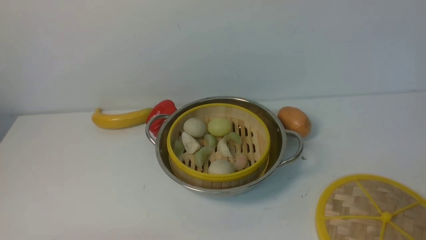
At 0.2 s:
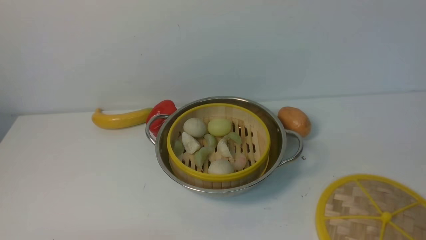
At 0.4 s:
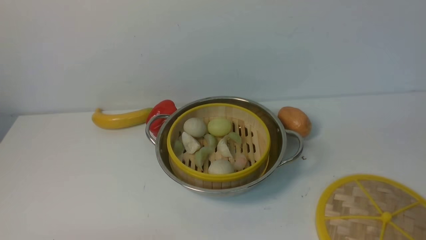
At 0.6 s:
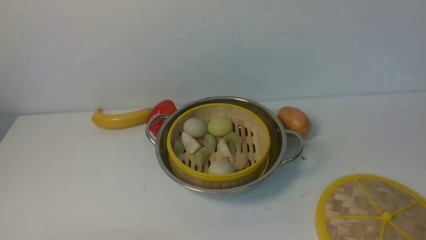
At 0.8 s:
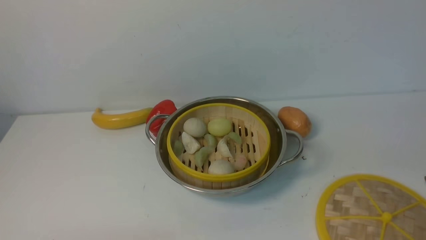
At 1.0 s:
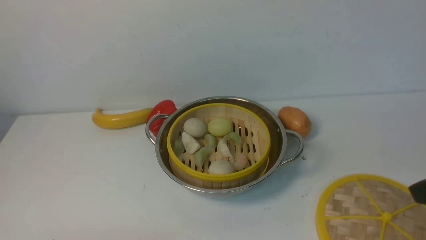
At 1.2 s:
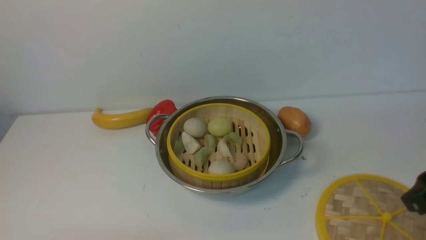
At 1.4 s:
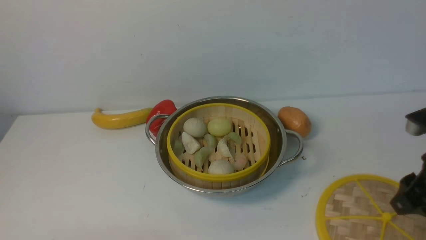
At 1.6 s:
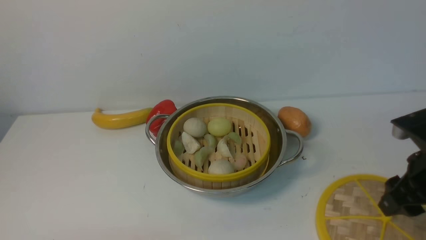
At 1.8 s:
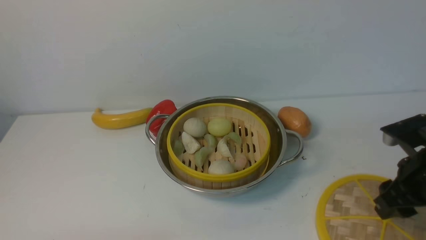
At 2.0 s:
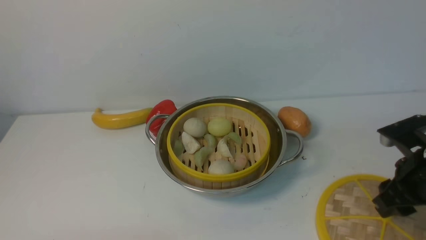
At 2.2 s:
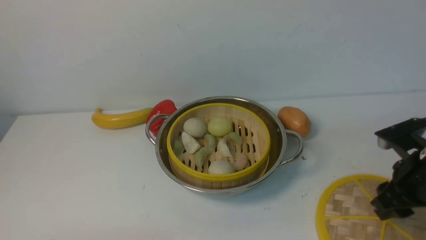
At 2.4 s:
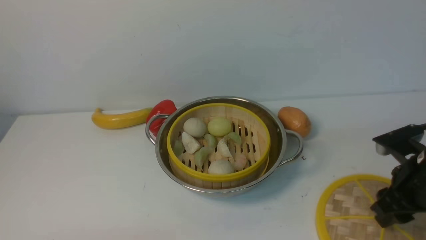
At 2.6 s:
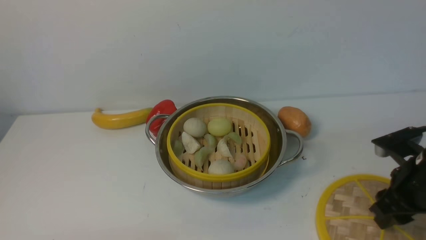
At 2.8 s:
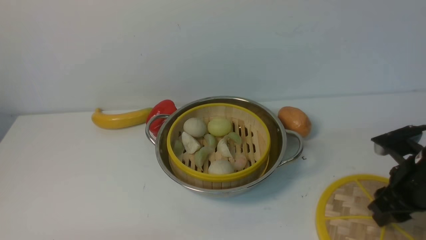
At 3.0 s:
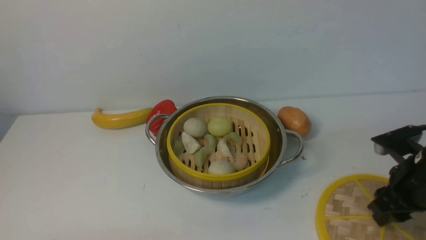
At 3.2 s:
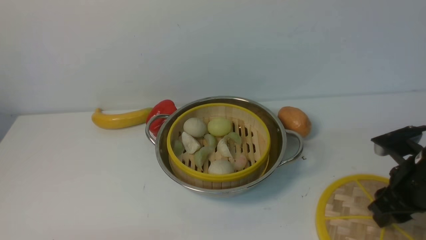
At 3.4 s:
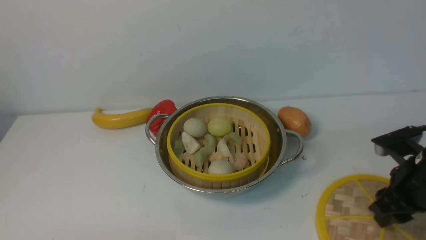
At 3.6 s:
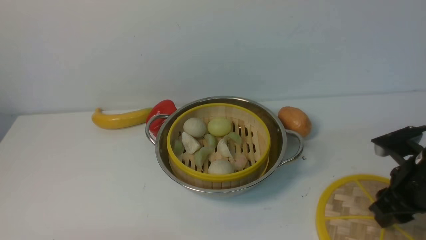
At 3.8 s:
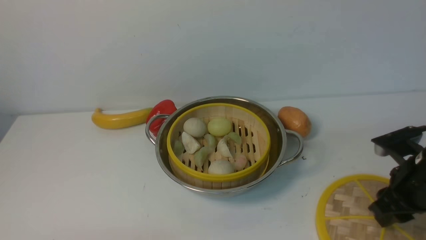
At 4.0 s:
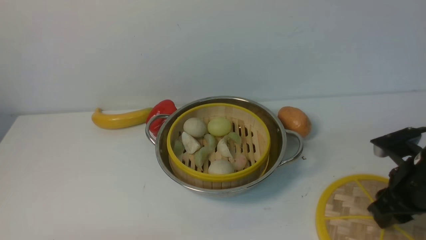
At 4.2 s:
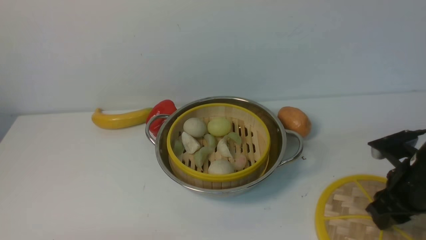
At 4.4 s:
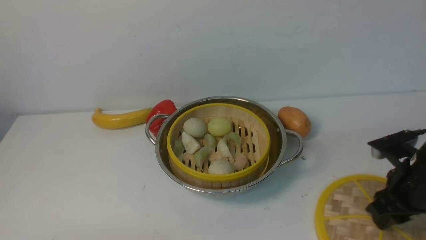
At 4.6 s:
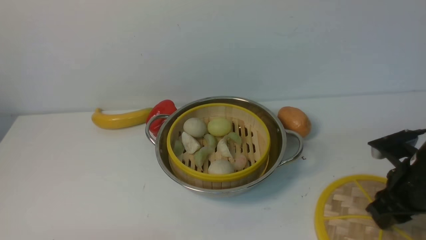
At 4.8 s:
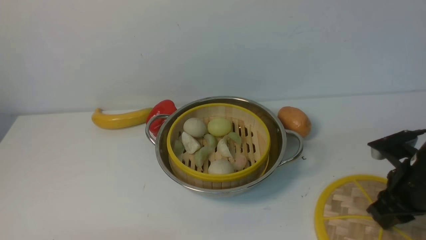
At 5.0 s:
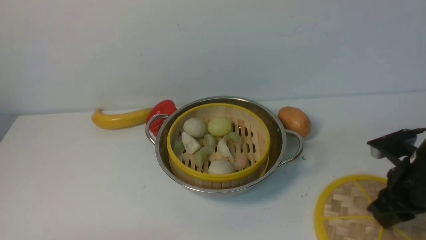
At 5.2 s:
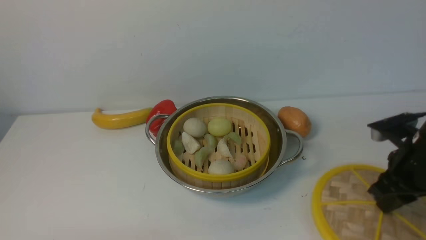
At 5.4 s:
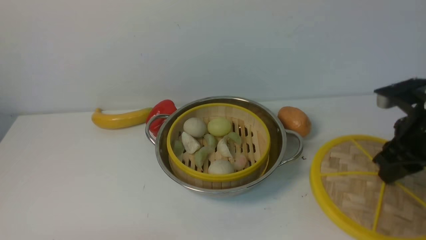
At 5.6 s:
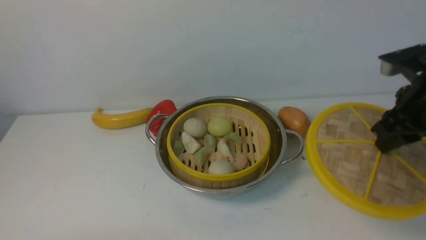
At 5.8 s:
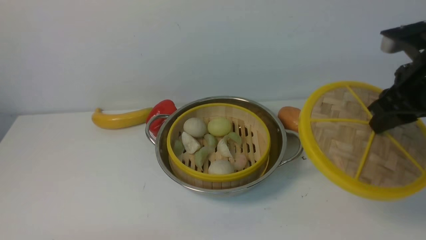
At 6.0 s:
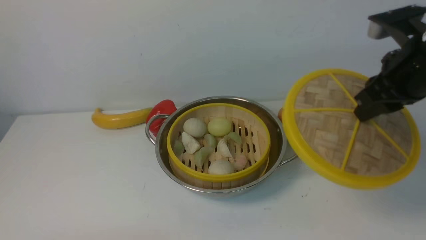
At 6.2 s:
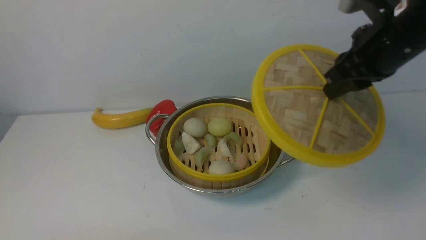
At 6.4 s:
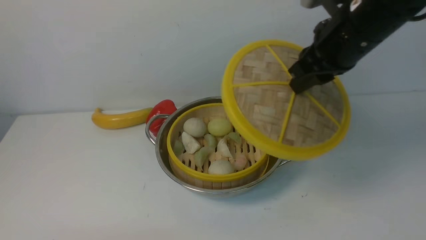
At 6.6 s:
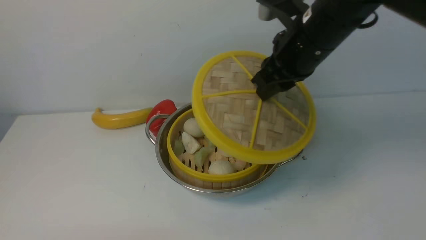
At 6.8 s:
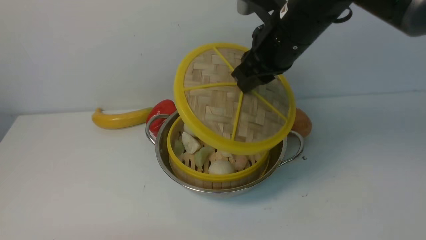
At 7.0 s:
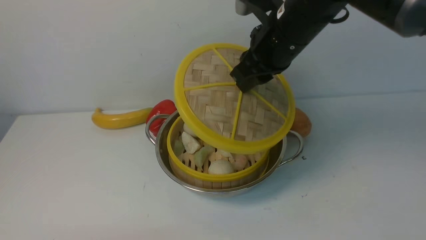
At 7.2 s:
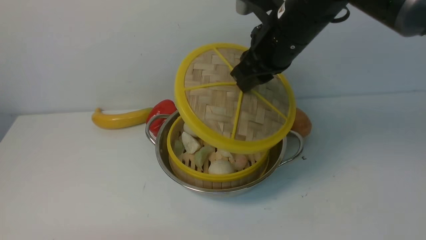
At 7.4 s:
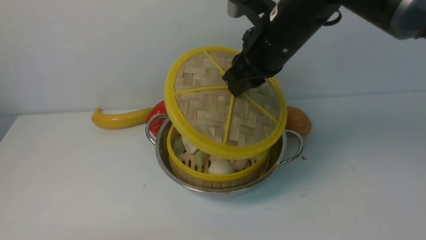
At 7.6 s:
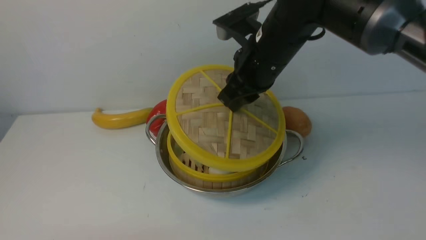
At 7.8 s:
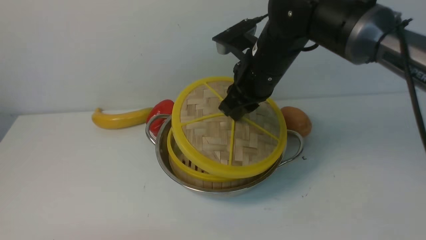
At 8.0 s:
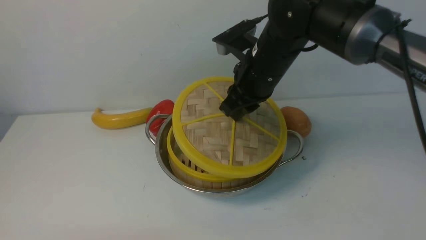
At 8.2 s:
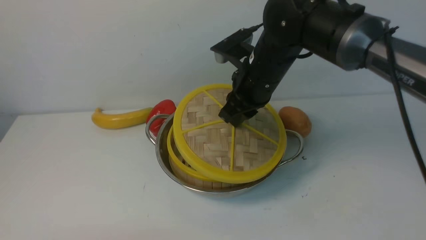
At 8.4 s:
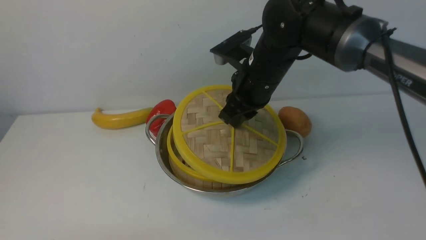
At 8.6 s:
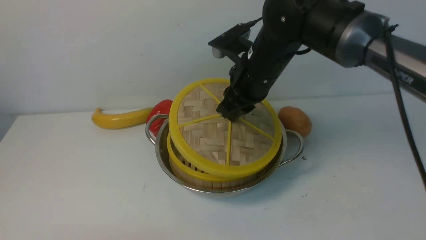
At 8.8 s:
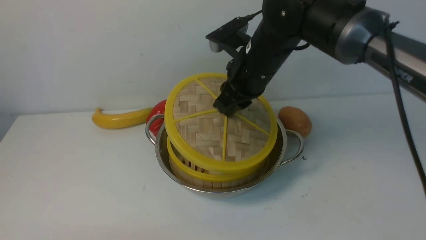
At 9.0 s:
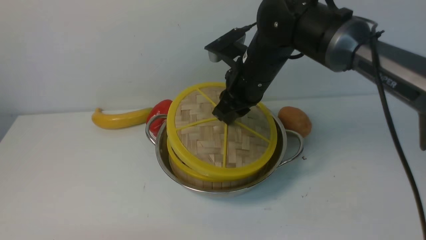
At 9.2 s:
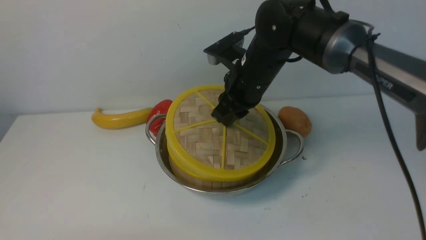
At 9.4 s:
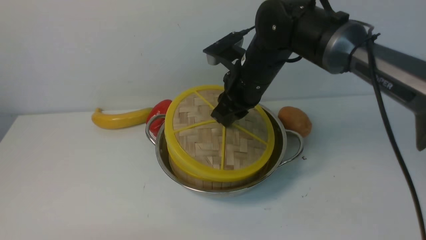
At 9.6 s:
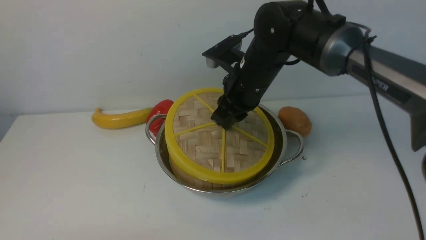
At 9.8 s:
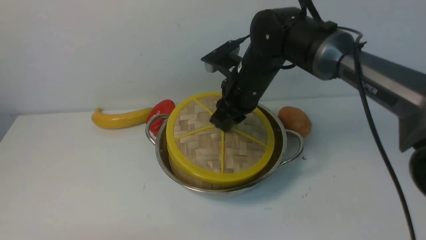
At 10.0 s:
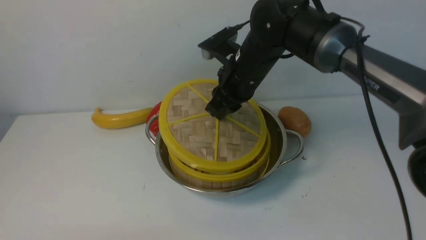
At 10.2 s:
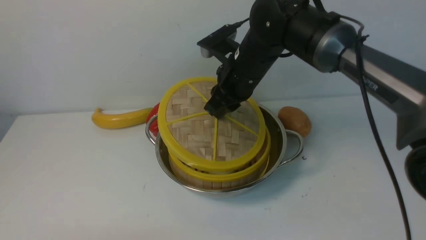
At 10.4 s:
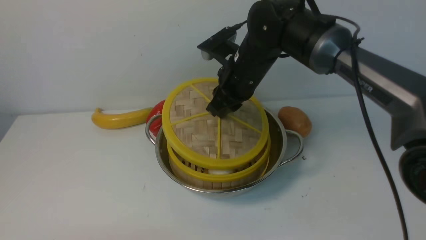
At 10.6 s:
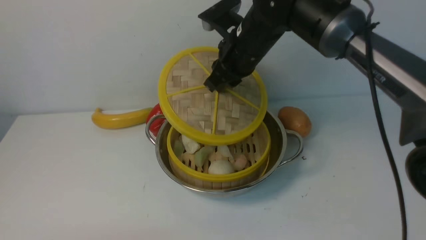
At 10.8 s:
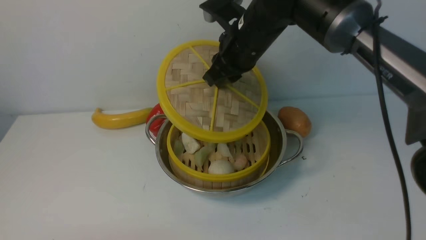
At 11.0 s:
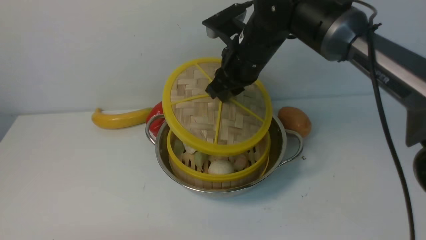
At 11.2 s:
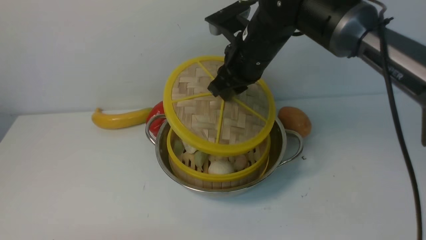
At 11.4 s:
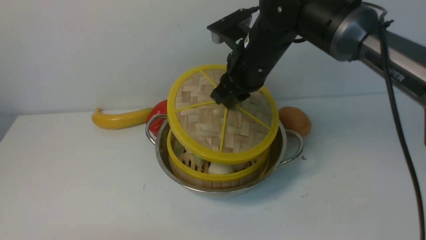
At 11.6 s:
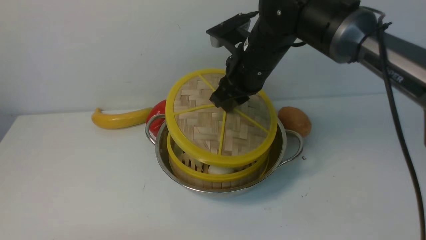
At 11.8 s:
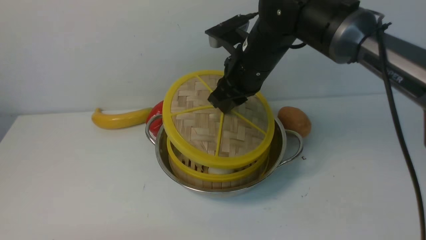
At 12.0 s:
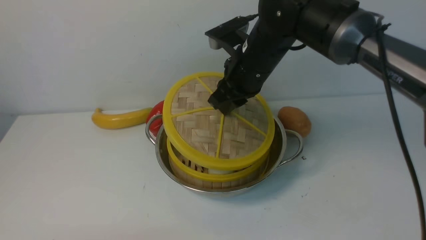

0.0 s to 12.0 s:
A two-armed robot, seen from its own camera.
Task of the whole recording: place the steamer in the pot on the white table, and put the lid on the steamer.
Step, 0.0 to 5.6 s: use the right arm to lift the lid of the steamer.
0.0 to 1.6 s: The right gripper heads forward, covering some 20 cm.
1.6 to 3.0 s: The right gripper ends up approximately 5 cm from where it was.
3.0 to 4.4 s: Both grippers stay about where they are.
4.4 to 6.0 s: The right gripper goes approximately 15 cm upward.
6.0 to 7.6 s: The right gripper travels to the left by about 15 cm.
7.6 to 9.0 s: The grippers stay close to where they were, moving slightly.
9.0 to 12.0 s: The grippers move only a little.

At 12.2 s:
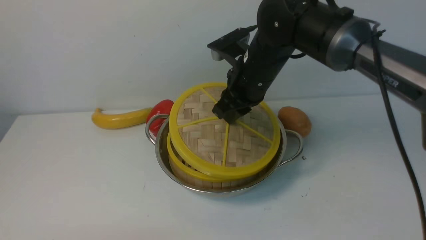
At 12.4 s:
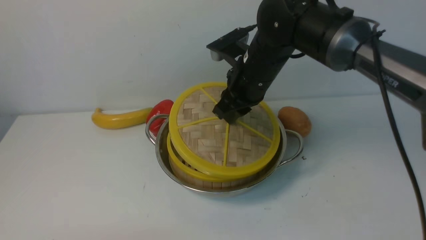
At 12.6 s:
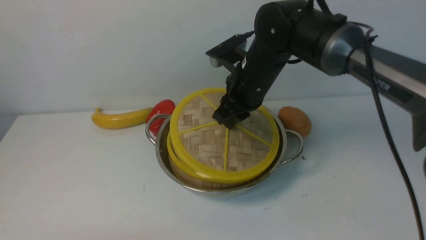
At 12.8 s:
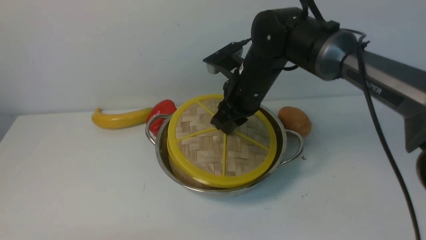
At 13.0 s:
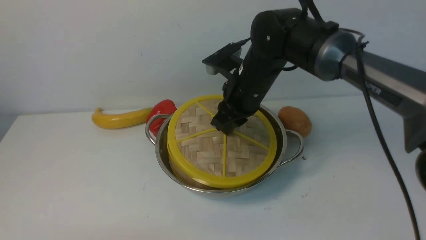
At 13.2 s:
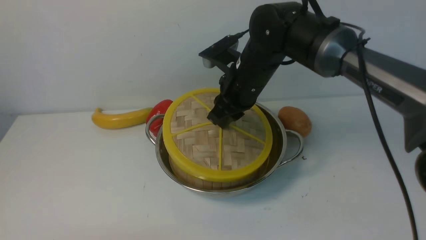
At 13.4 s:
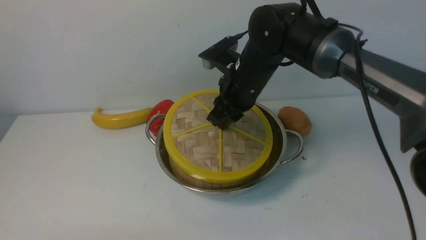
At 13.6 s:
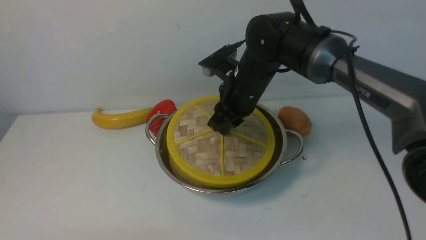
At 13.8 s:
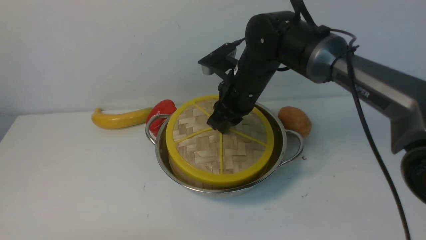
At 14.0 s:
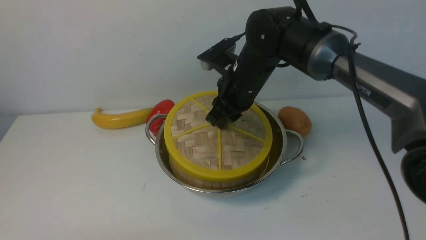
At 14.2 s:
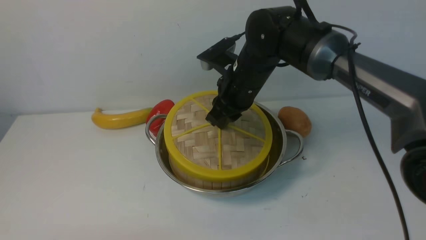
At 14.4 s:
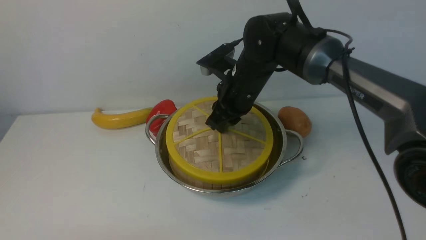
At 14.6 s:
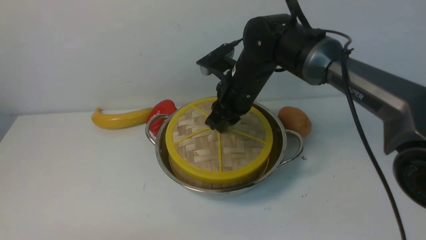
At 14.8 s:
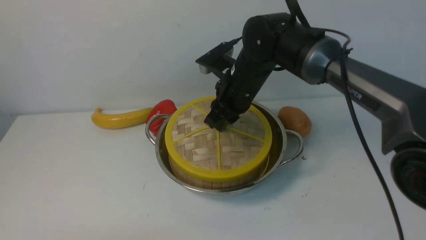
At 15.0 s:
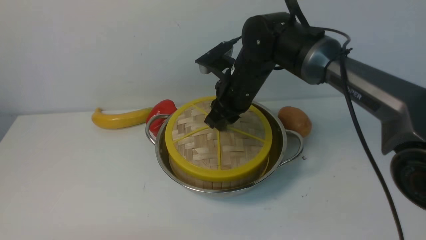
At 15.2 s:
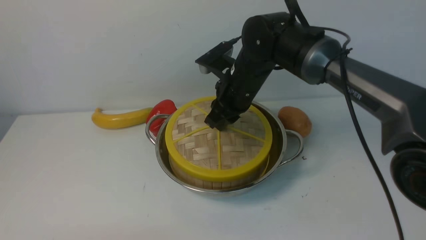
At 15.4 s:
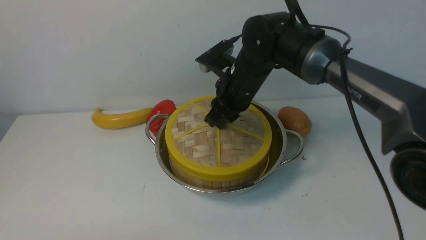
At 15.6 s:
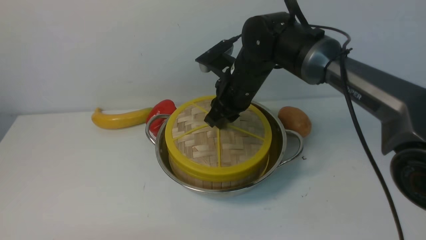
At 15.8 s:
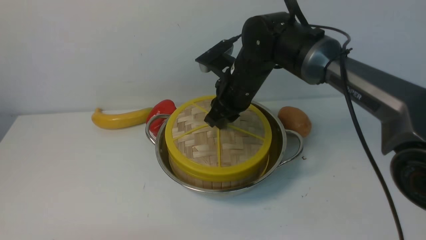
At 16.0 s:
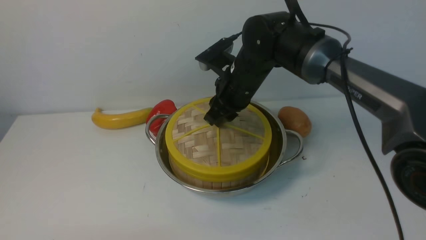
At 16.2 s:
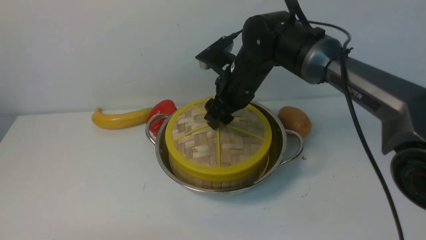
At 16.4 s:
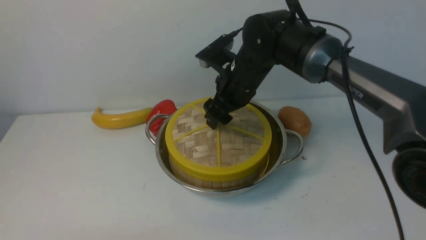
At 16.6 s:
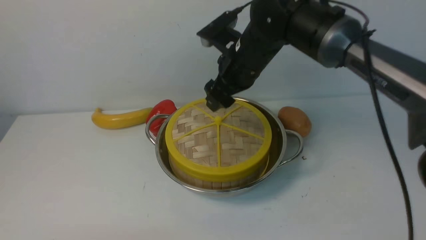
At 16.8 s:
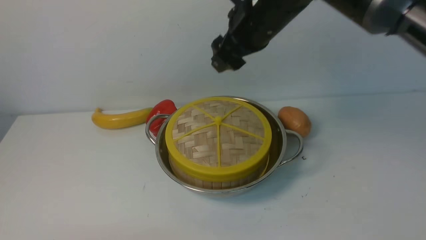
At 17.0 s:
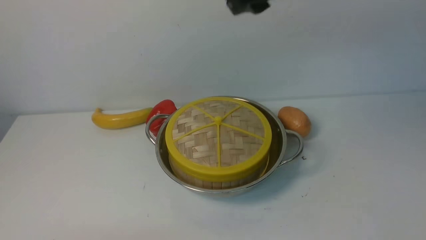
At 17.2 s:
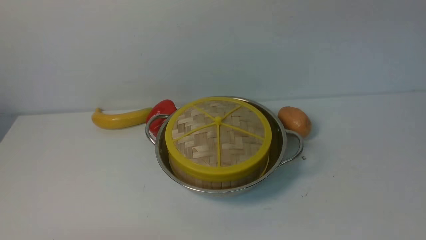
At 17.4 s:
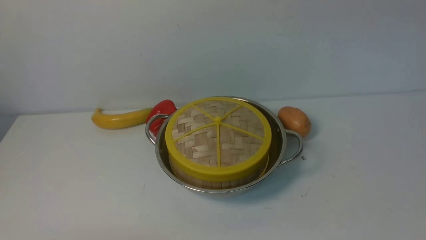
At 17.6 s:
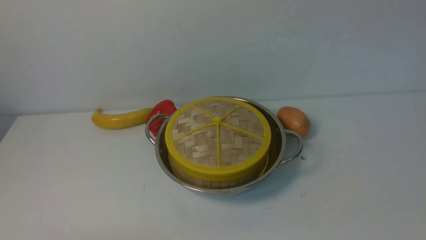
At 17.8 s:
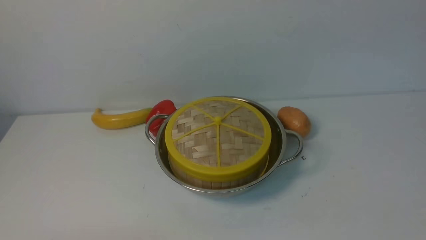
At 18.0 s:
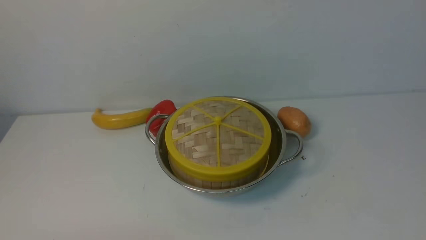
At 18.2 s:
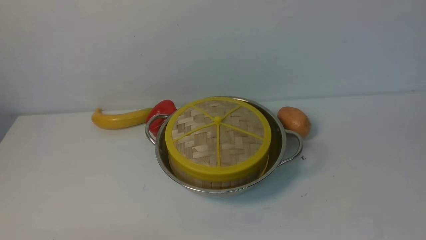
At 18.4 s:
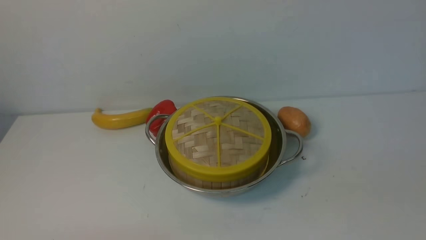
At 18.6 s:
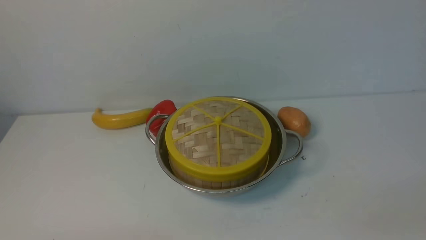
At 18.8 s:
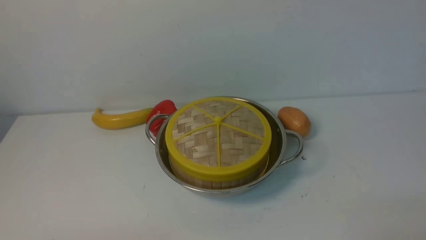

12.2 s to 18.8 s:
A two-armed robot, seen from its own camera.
Task of the whole recording: place the steamer in the pot on the white table, and put the lid on the steamer.
Step, 12.2 to 17.6 s: use the right arm to place the steamer lid on the steamer.
12.2 to 13.8 s: The grippers stay close to where they were, moving slightly.
13.8 to 15.4 s: The two grippers keep their place.
15.4 to 17.2 s: The right gripper goes roughly 30 cm upward and backward, and opens and closes again.
